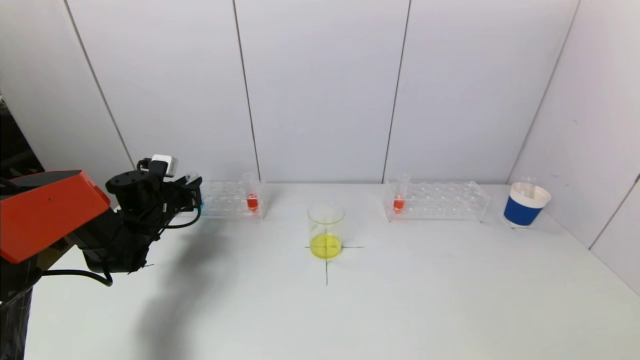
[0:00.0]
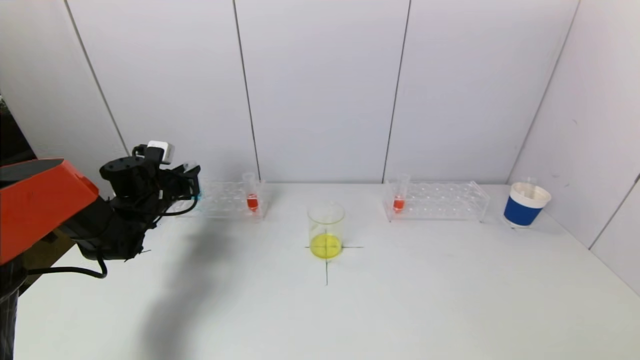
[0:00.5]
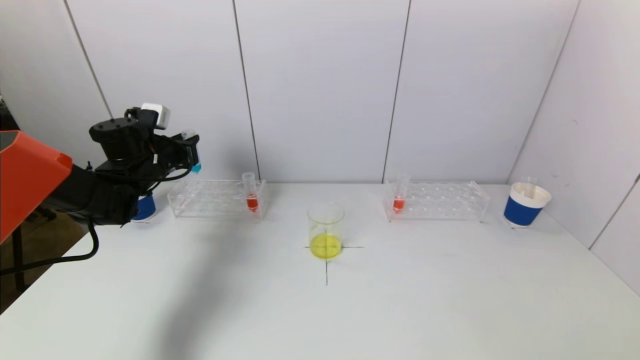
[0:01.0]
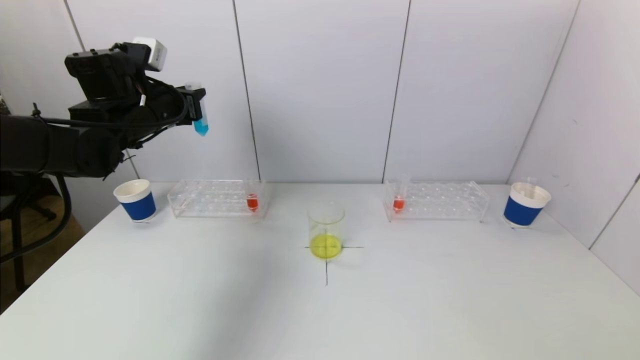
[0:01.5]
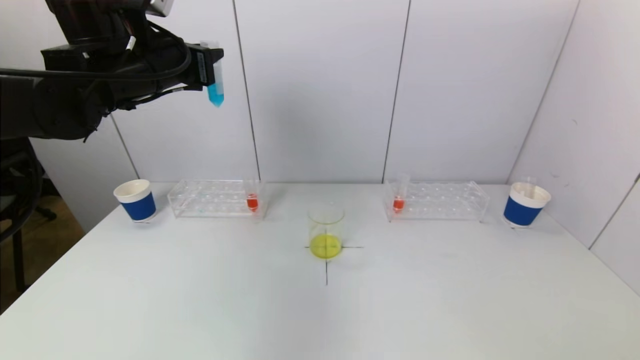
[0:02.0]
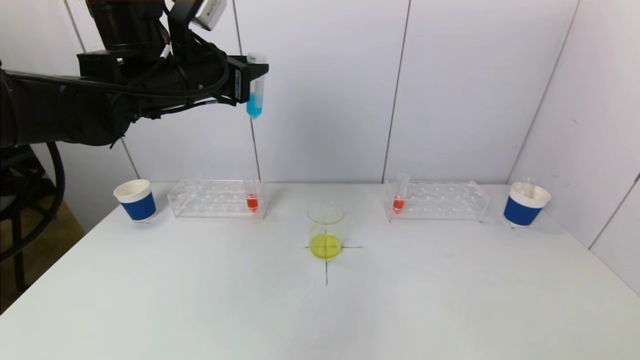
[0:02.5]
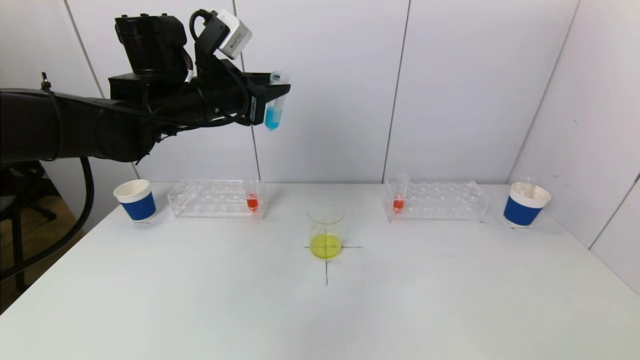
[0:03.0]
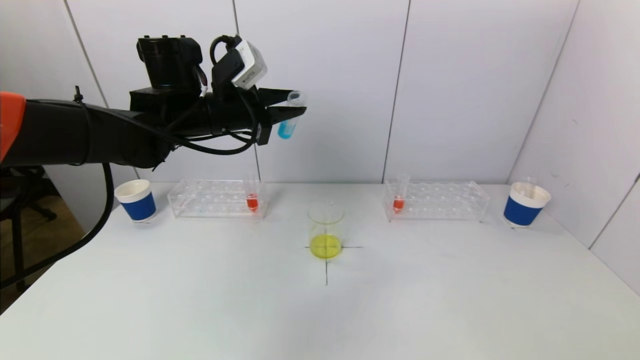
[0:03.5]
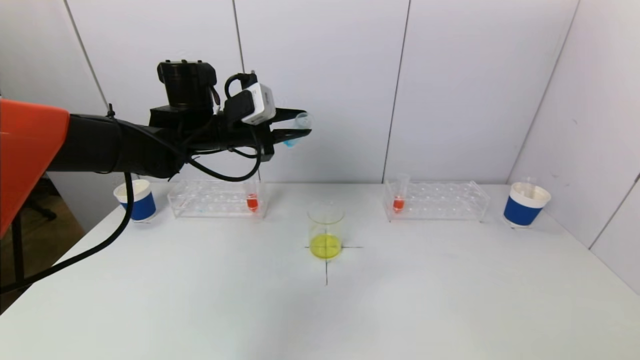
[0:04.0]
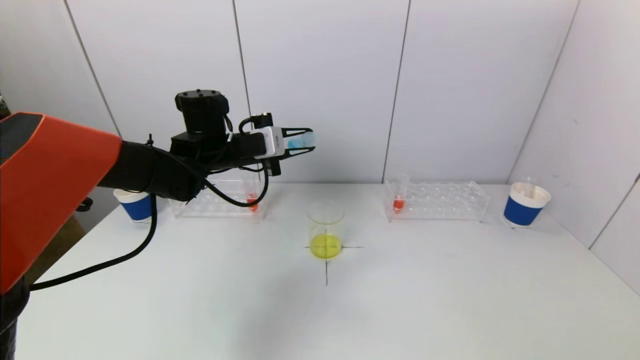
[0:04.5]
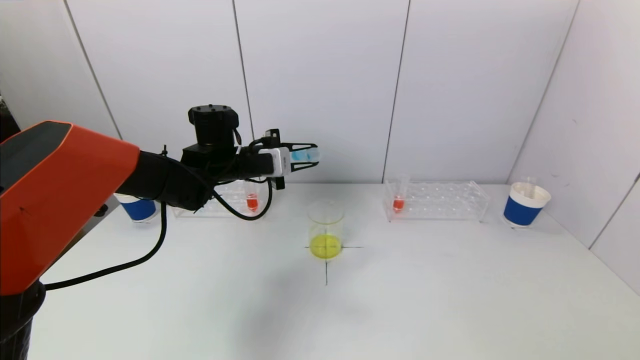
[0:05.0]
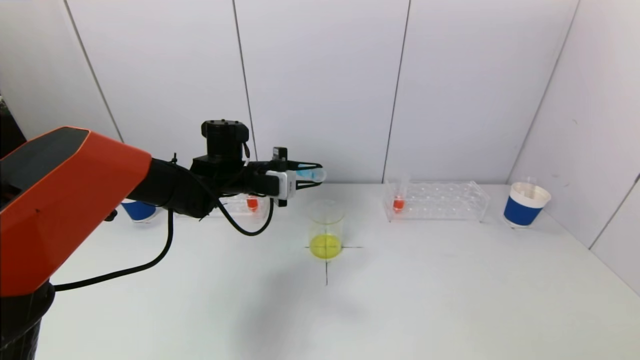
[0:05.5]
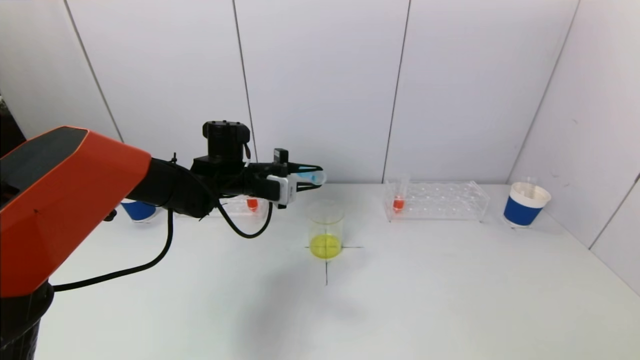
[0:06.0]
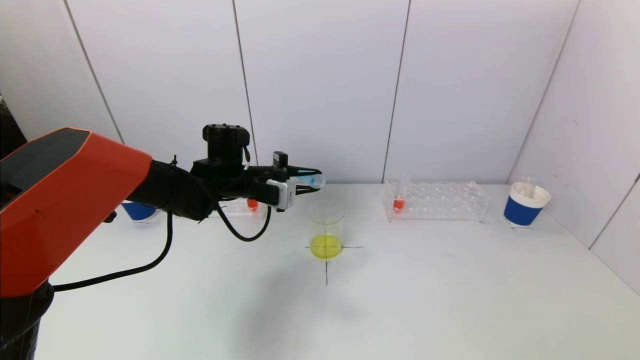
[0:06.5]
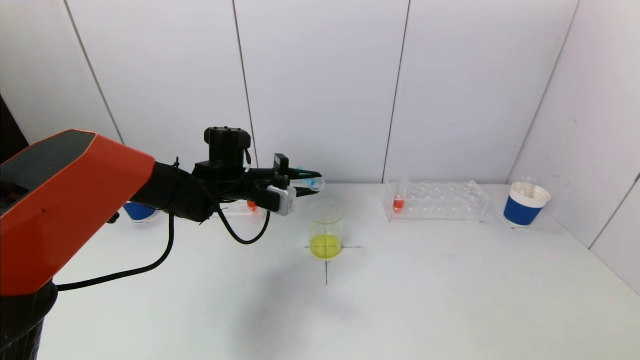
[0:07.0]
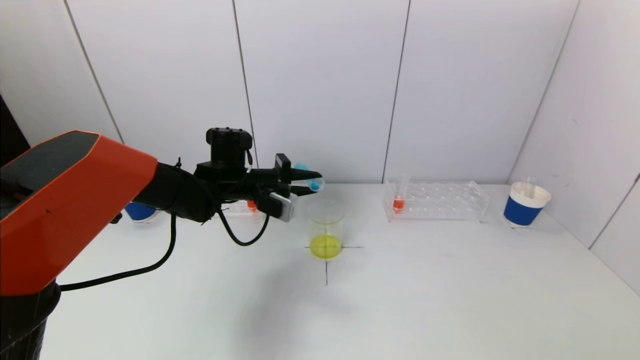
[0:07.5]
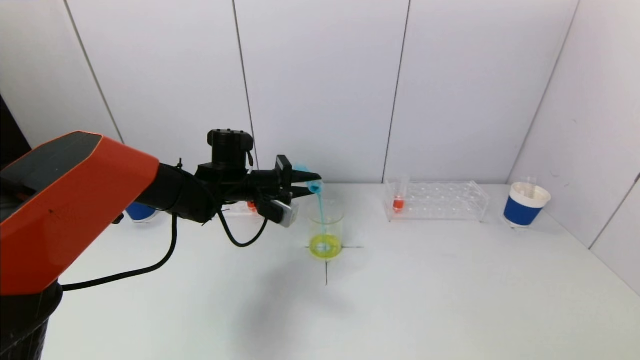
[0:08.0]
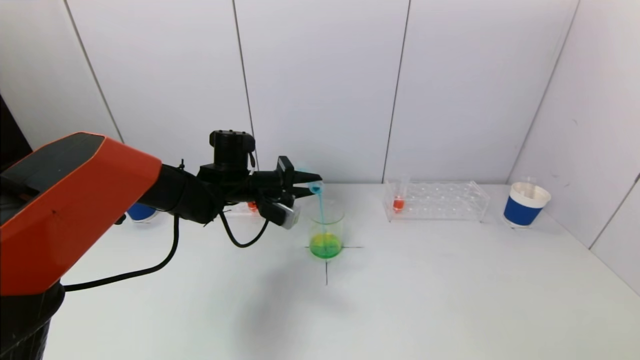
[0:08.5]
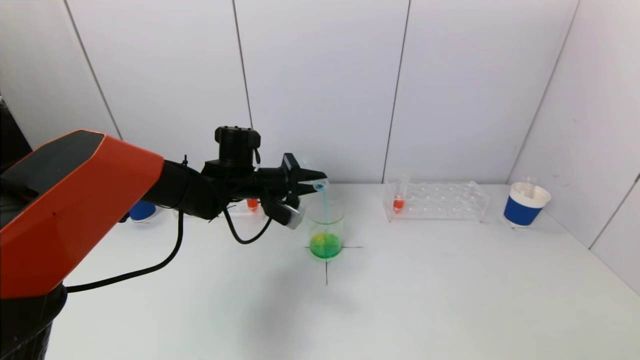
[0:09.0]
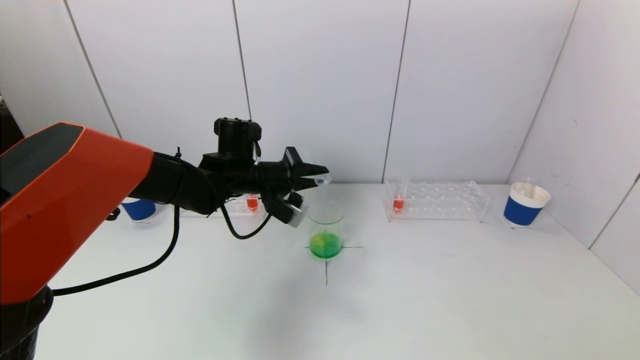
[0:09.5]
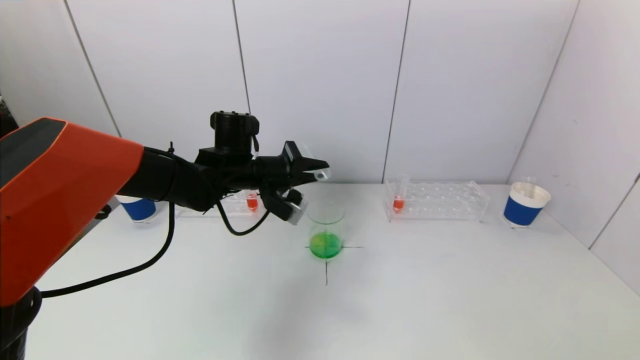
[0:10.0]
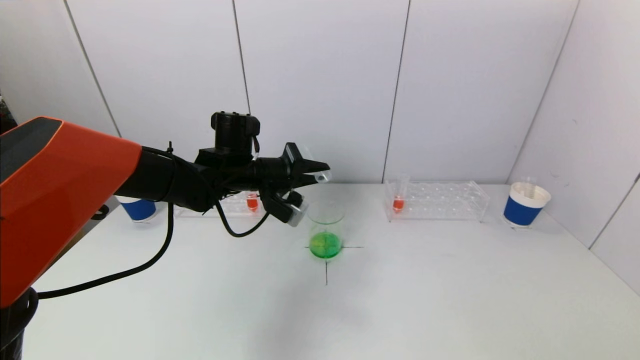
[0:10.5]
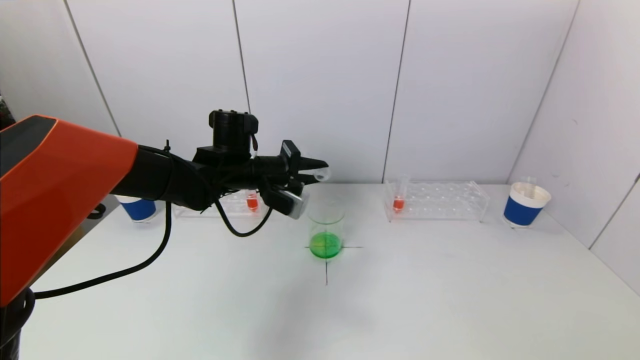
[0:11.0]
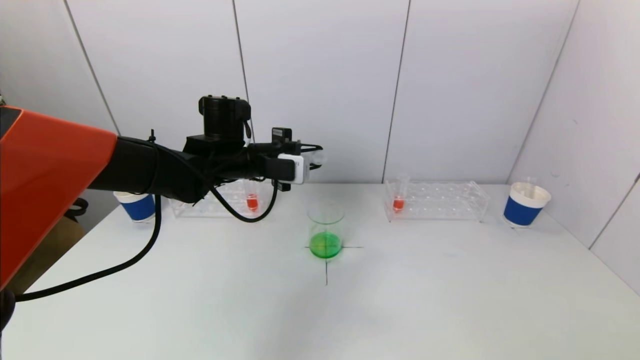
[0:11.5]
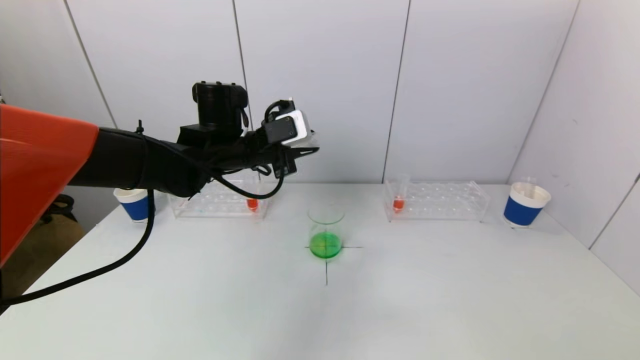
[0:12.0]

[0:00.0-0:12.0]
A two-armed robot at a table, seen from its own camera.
Task of the whole recording: pick up a test tube with pigment on left test tube rack and a test tube with pigment on right test tube rack by grippers and pour them into the beaker.
Step, 0:00.0 to 0:09.5: Pour the blue reagent into the graduated cylinder with the left gripper.
0:00.0 to 0:02.0: The left gripper goes approximately 25 cm upward.
0:02.0 to 0:04.0: The left gripper shifts some 10 cm downward and to the right.
0:04.0 to 0:06.0: The left gripper heads downward, covering some 10 cm.
0:06.0 to 0:08.0: There are only small adjustments of the grippers.
0:08.0 to 0:10.0: There are only small adjustments of the grippers.
0:10.0 to 0:12.0: The left gripper is displaced upward by about 5 cm.

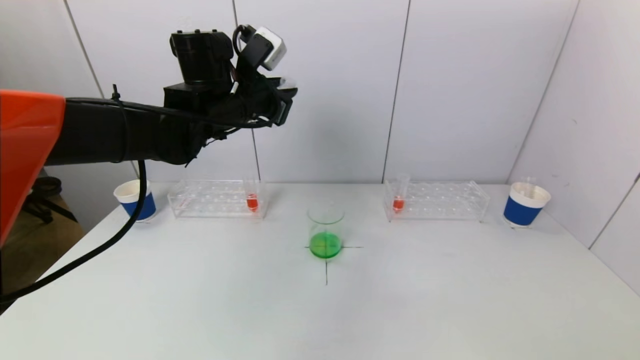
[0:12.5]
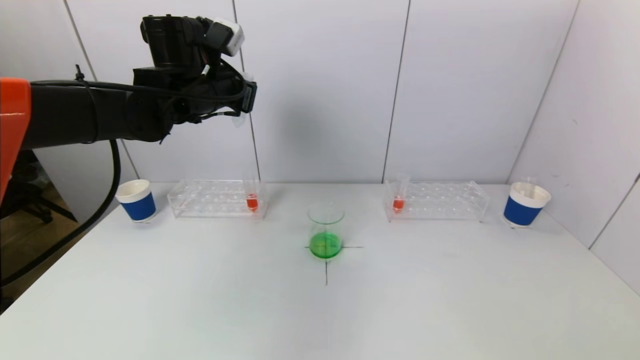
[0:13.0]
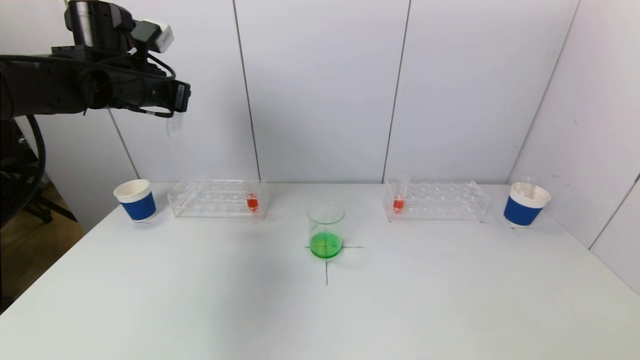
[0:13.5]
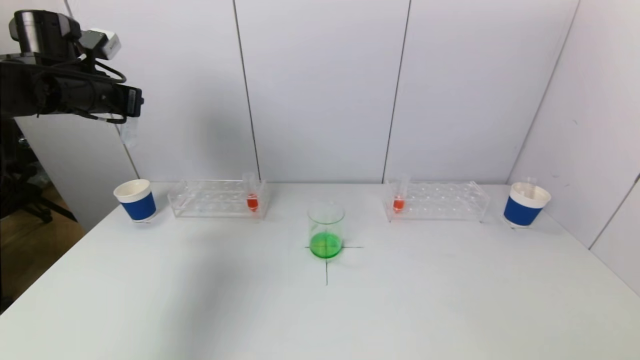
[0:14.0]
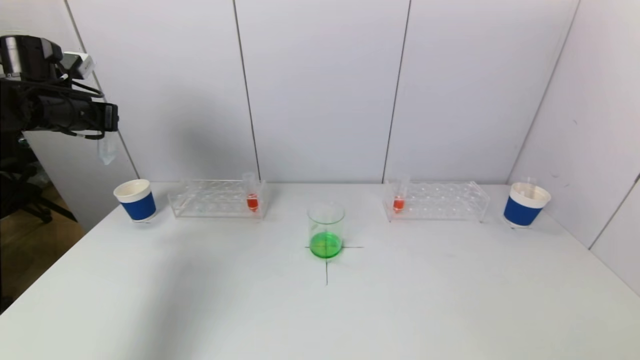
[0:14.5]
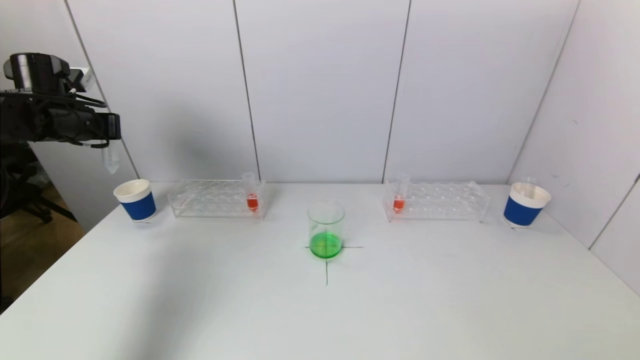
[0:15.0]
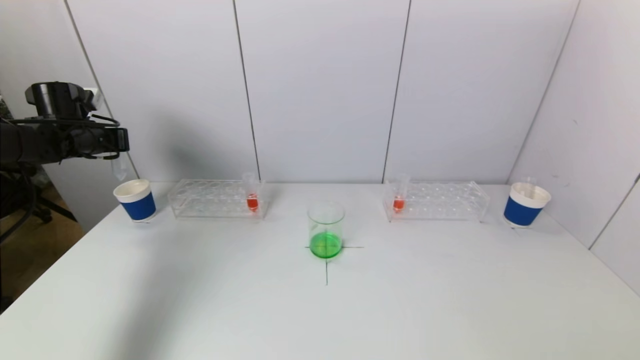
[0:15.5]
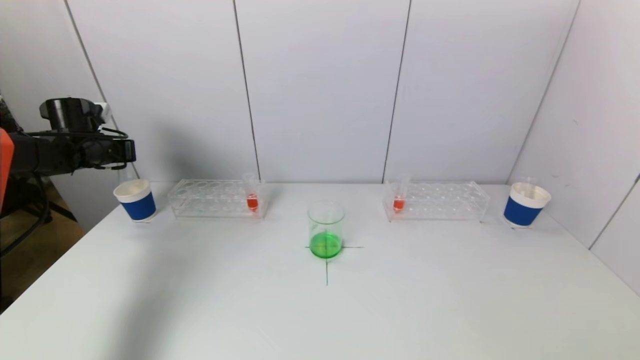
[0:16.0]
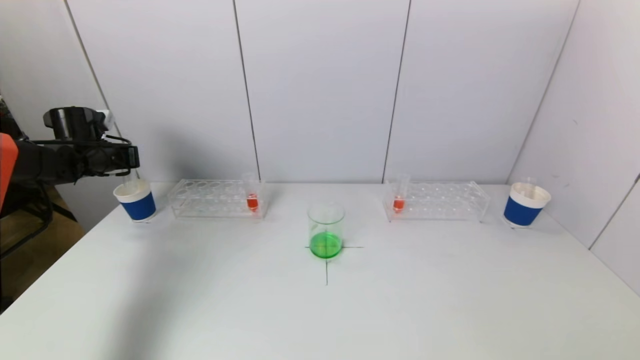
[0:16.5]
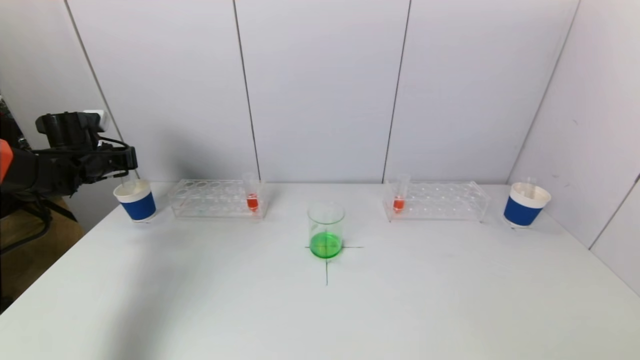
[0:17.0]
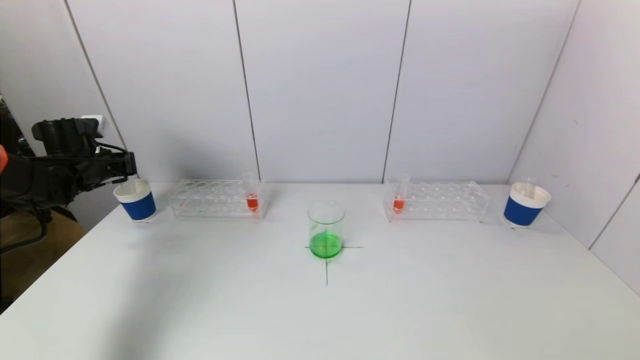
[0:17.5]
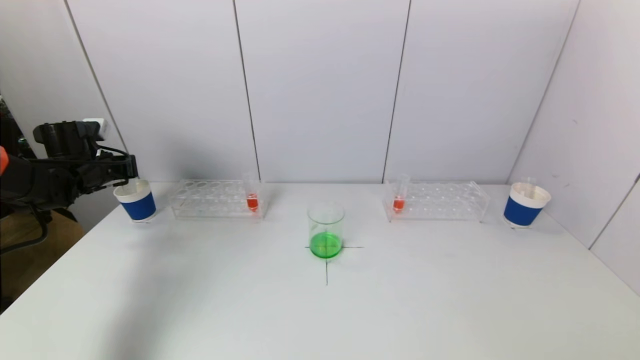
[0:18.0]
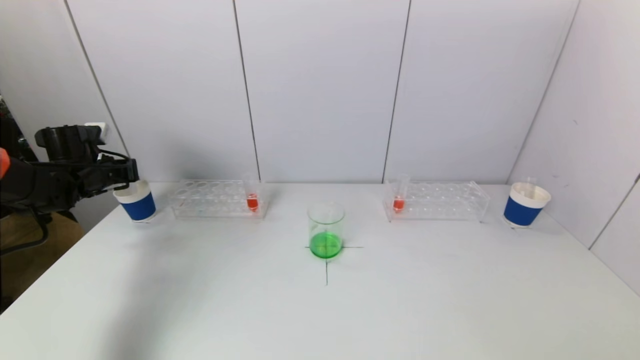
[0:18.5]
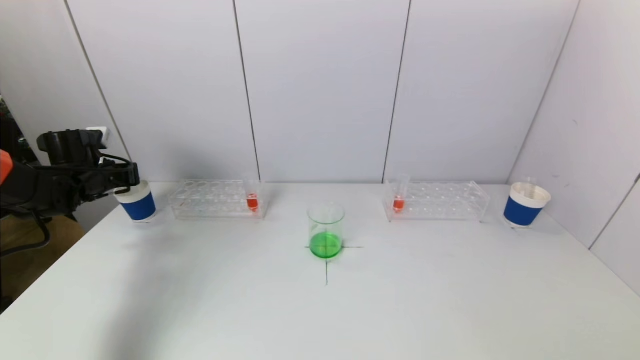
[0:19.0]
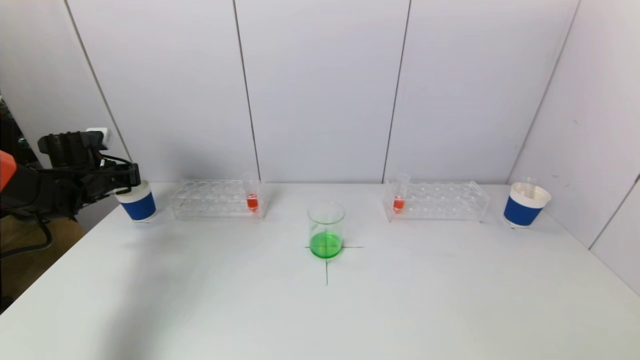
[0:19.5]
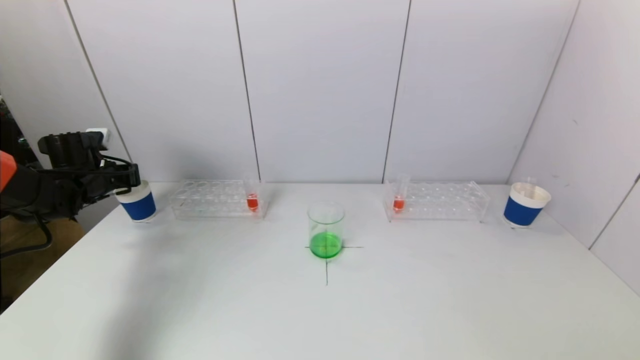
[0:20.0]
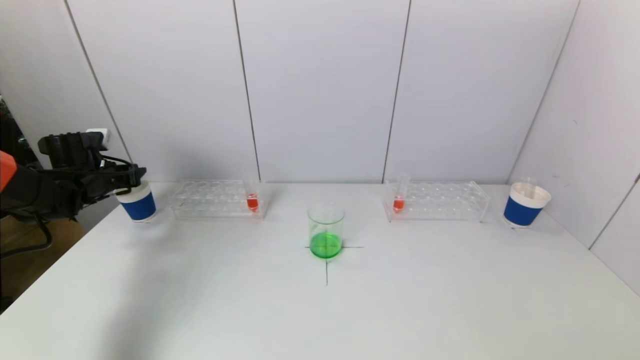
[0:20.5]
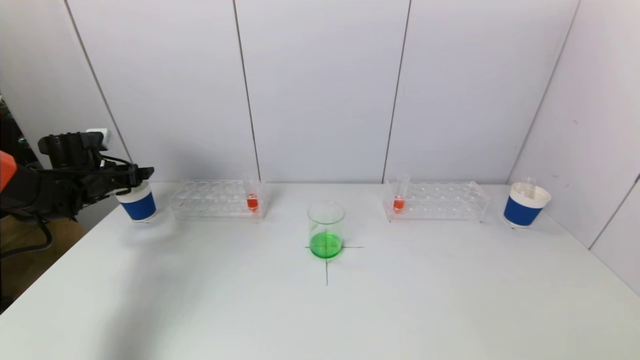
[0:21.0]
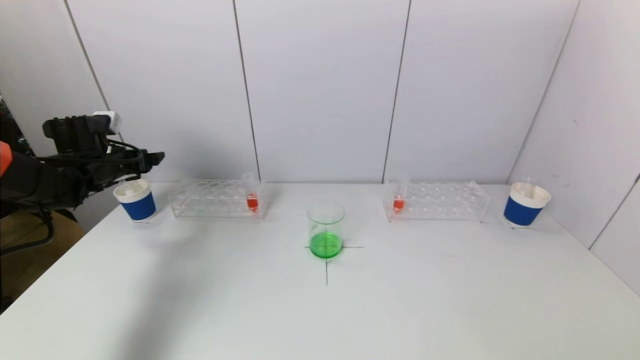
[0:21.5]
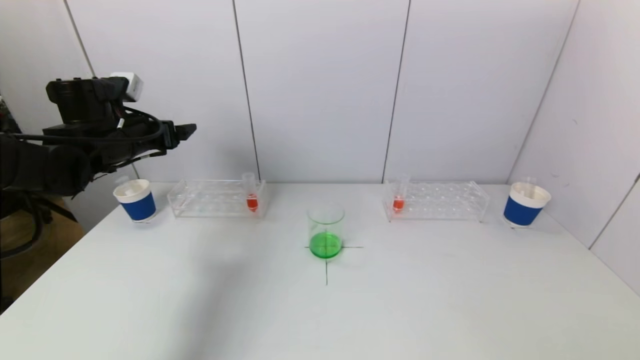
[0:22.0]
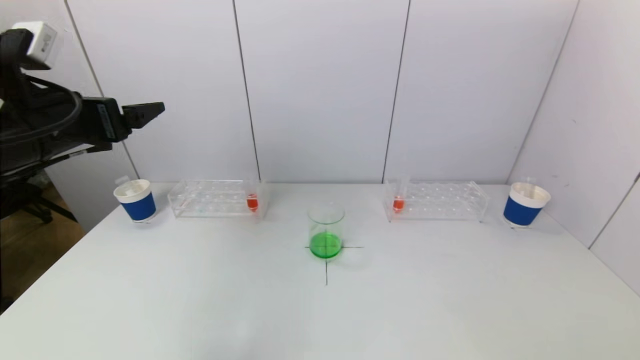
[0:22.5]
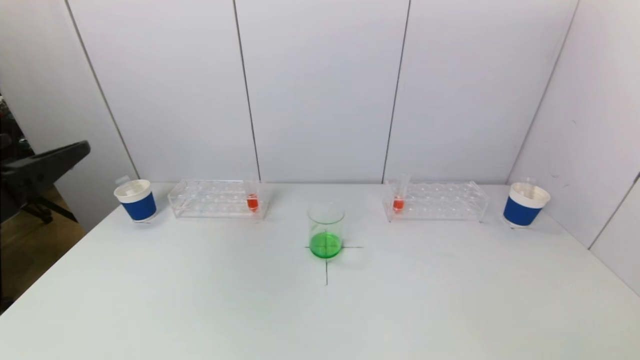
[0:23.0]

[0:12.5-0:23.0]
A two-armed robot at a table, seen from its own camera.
Task of the whole recording: pick up a test tube with pigment on left test tube rack and a test tube with pigment on right test tube rack by grippers and pour them into the beaker.
Step, 0:12.5 to 0:20.5: Place the test tube into the paper cup with the left gripper.
0:12.5 to 0:14.5: The left gripper shifts about 25 cm to the left.
0:14.5 to 0:16.5: The left gripper shifts roughly 15 cm downward and forward.
0:16.5 to 0:19.0: The grippers make only small movements.
0:19.0 to 0:21.0: The left gripper opens.
0:21.0 to 0:23.0: The left gripper goes about 35 cm backward, upward and to the right.
